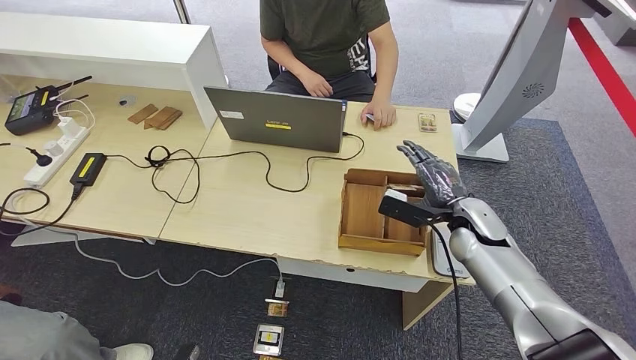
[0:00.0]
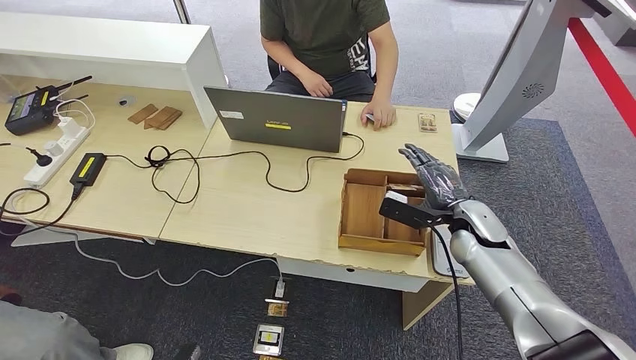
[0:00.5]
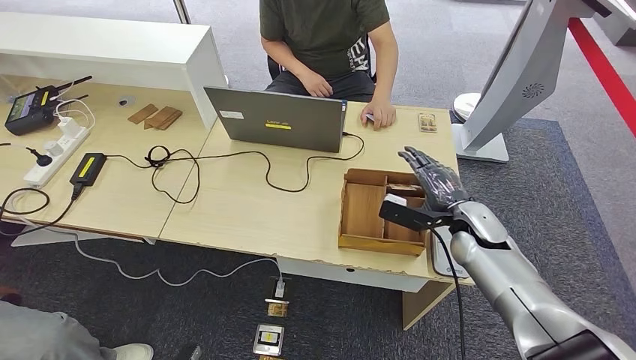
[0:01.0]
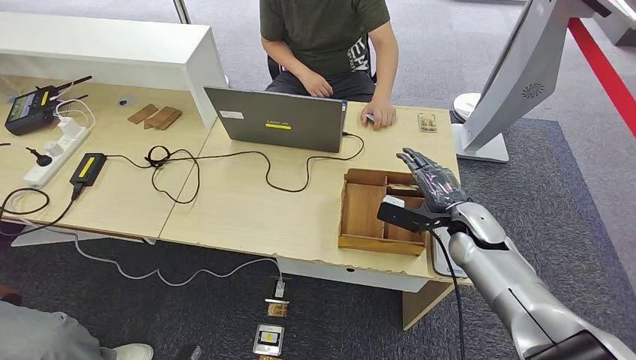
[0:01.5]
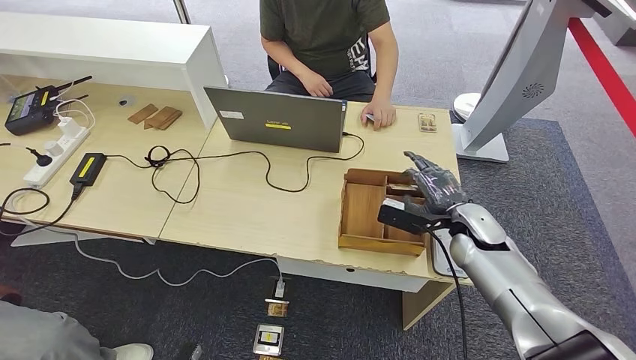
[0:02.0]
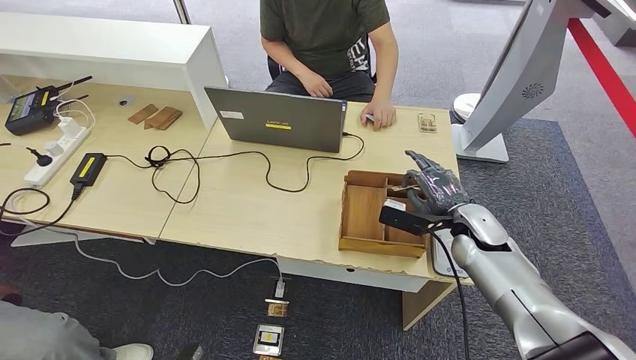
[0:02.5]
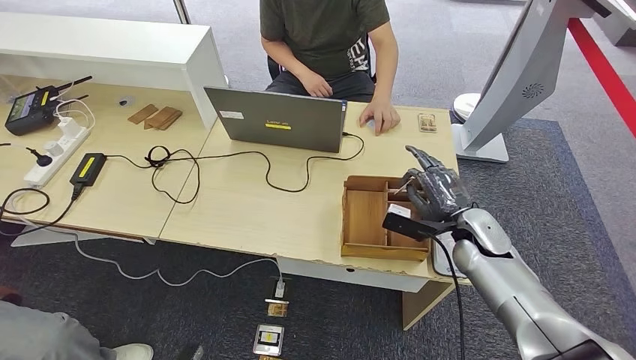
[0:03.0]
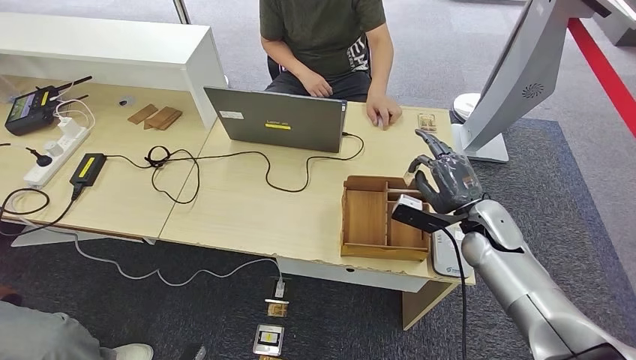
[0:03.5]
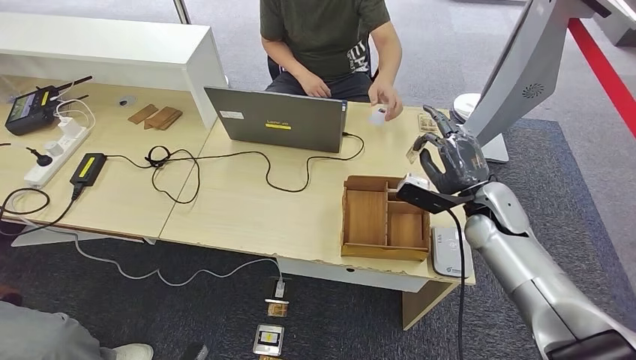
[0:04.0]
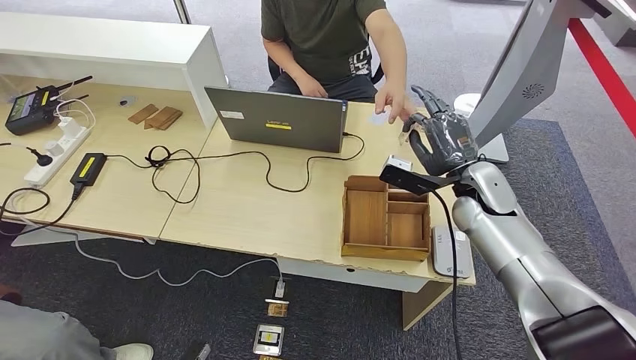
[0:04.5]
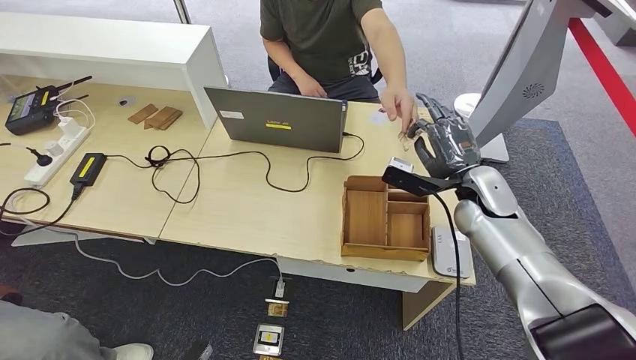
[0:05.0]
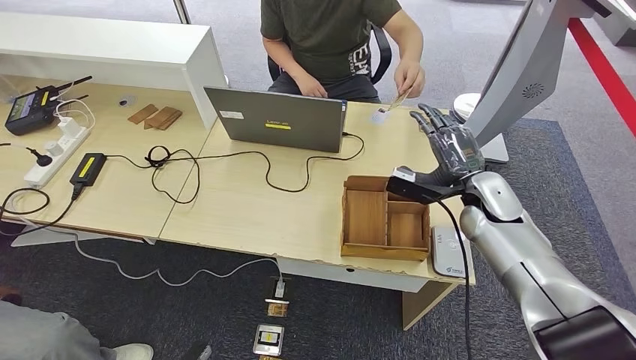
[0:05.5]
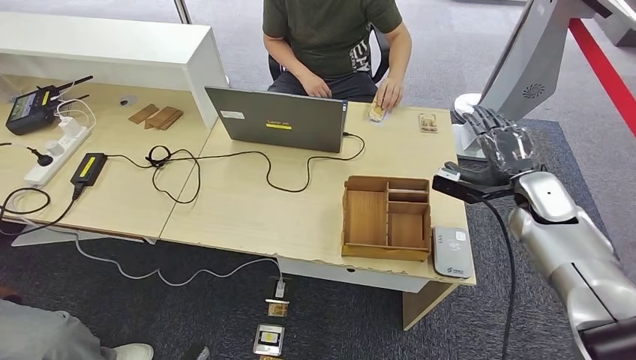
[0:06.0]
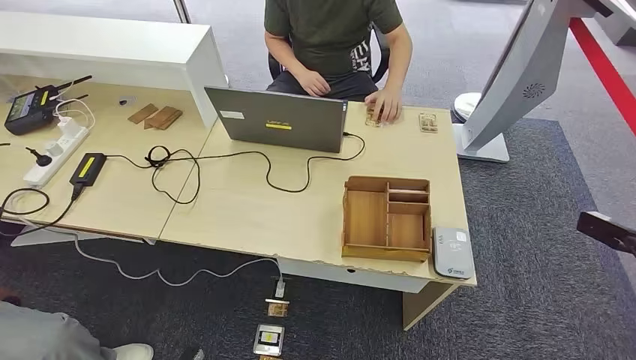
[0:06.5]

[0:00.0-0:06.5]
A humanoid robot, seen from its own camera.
Step, 0:02.0 to 0:04.0: Pick up the room key from the key card box.
Step, 0:04.5 to 0:06.0: Hand the room key to the person.
0:00.0 to 0:02.0: The hands make only small movements.
0:02.0 to 0:04.5: The right hand is displaced upward by about 10 cm.
0:04.5 to 0:06.5: The right hand shifts approximately 30 cm to the right.
